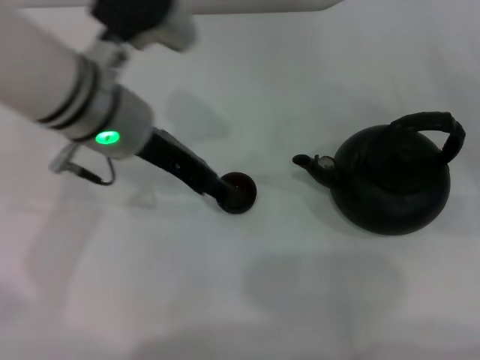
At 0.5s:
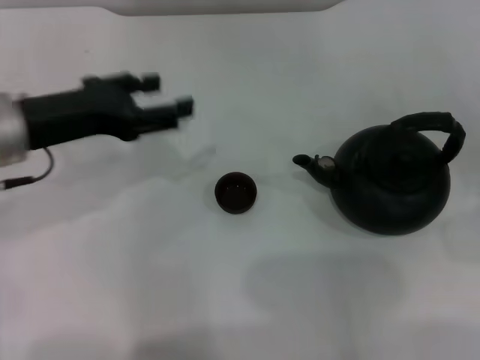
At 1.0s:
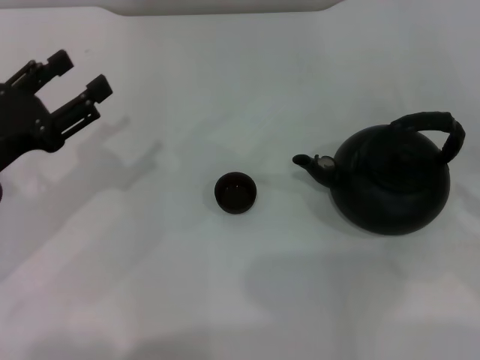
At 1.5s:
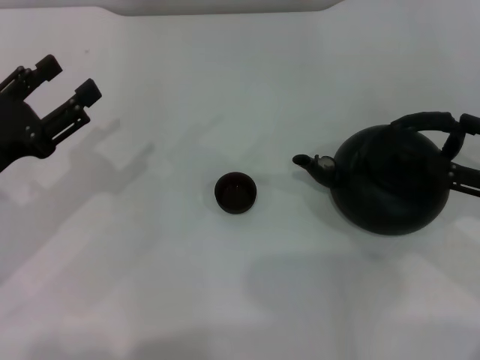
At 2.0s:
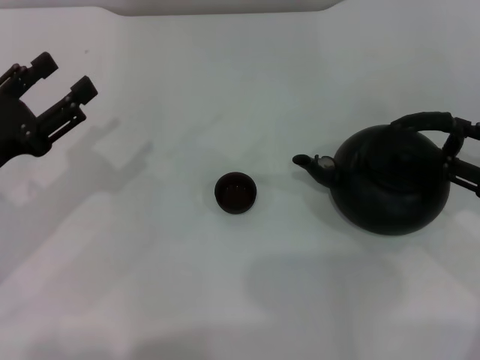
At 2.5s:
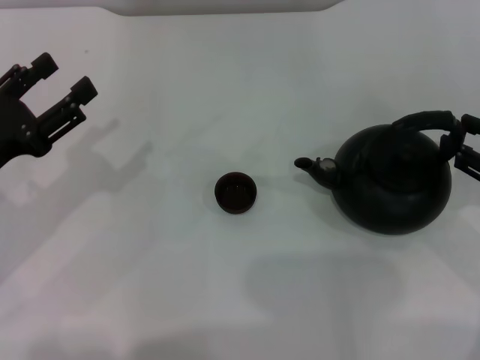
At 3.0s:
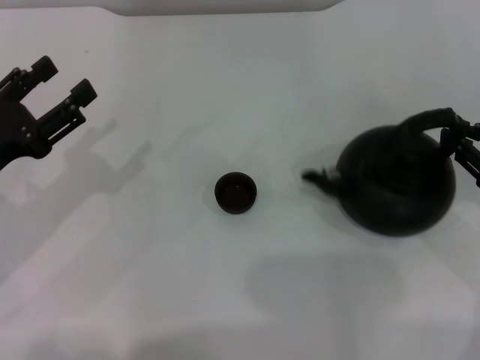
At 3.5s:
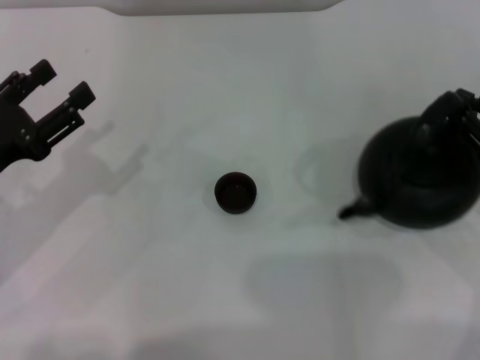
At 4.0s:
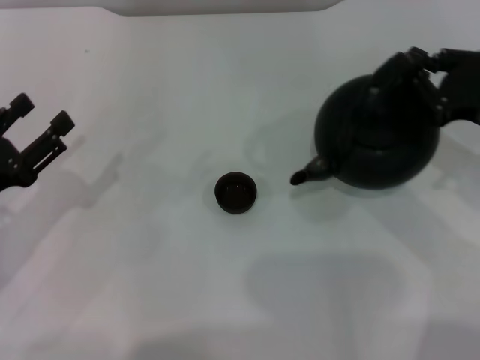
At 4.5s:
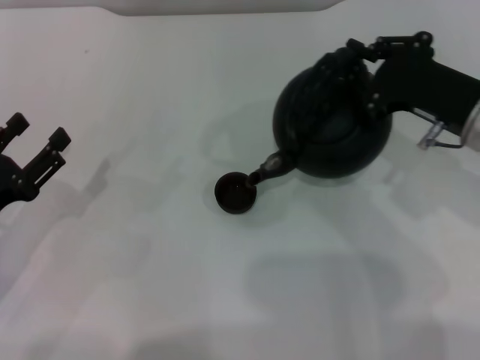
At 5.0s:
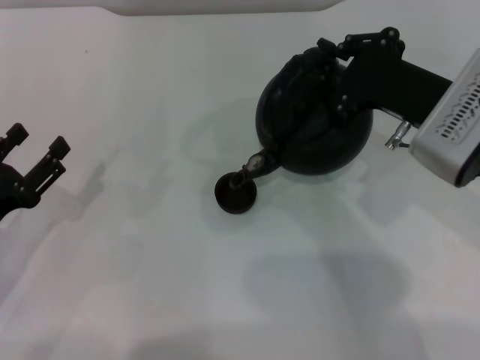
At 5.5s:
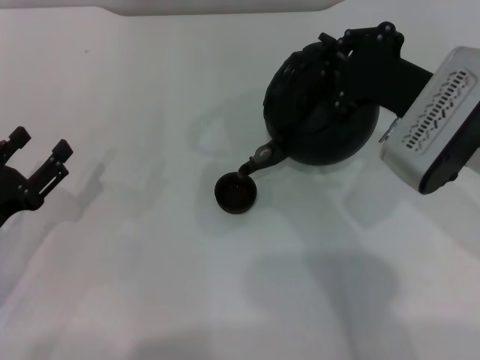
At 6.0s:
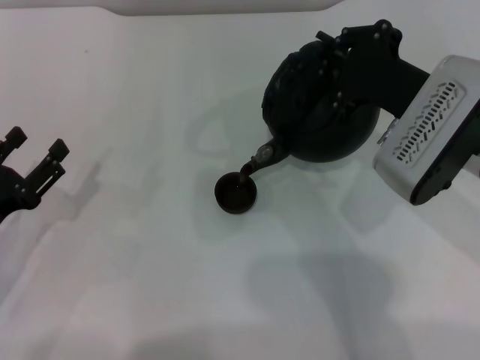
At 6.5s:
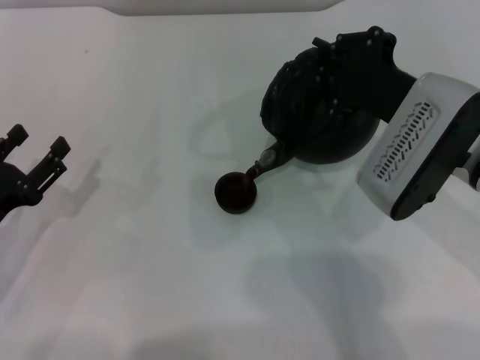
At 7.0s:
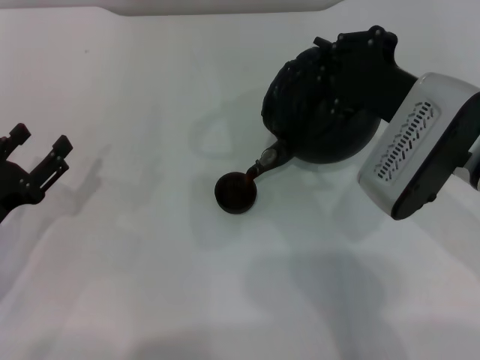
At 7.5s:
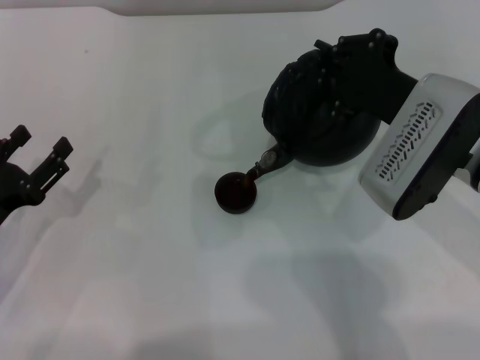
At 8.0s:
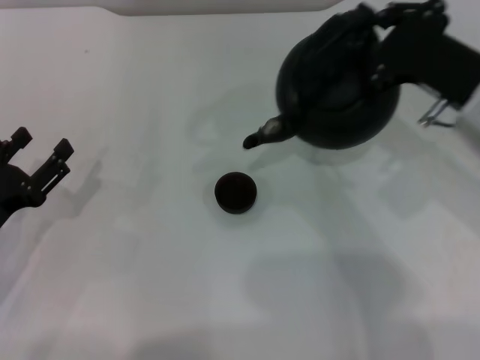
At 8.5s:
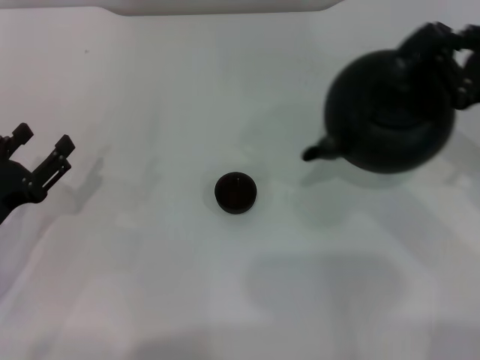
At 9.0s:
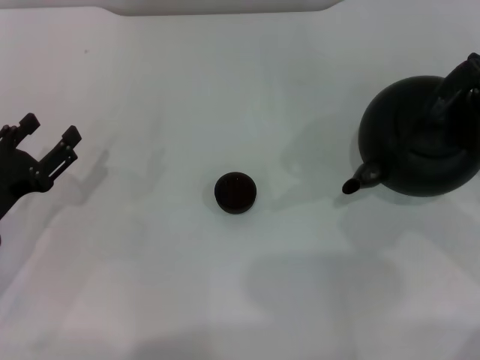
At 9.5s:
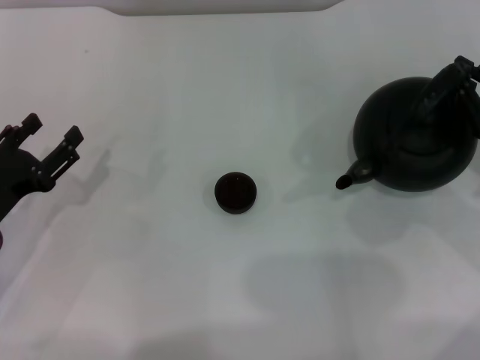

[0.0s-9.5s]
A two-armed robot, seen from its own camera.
Task of the whole recording: Grasp the handle of the teapot with one hand and pour tea into the teacup.
Step, 0.0s to 4.0s: Pick up the teapot with the right gripper.
Step, 4.5s to 7.5s: Pour tea into the teacup with the right gripper.
0.0s to 2.0s: The right gripper goes roughly 5 cm to the left. The left gripper shifts roughly 20 cm to the left, backward and downward.
2.0s to 4.0s: The right gripper shifts by some 5 cm, and closes its fingers.
4.0s to 5.5s: The right gripper is displaced to the left by approximately 10 cm.
5.5s to 7.5s: There are only small adjustments of the grippers.
7.5s to 9.5s: The right gripper travels to the right by about 15 cm.

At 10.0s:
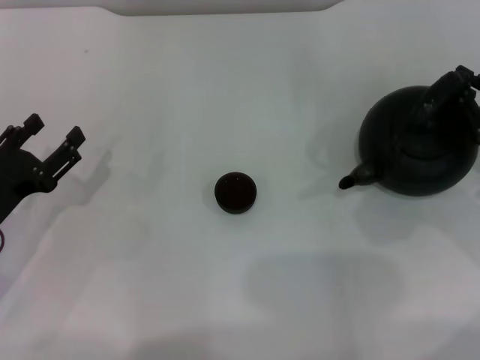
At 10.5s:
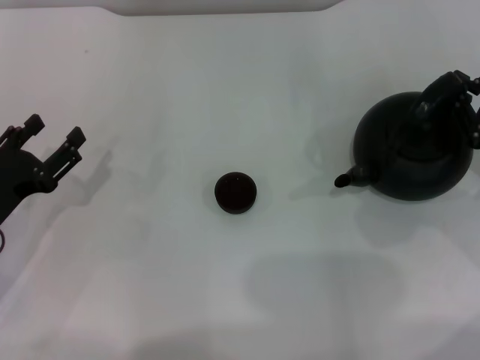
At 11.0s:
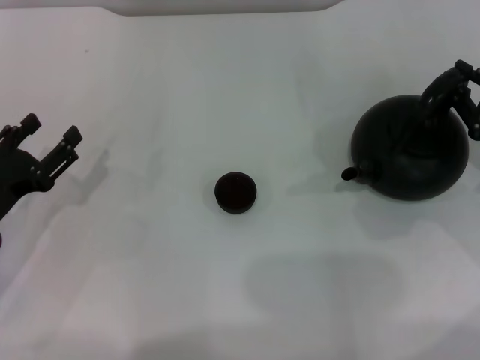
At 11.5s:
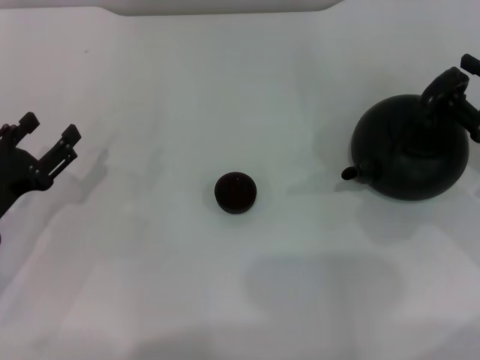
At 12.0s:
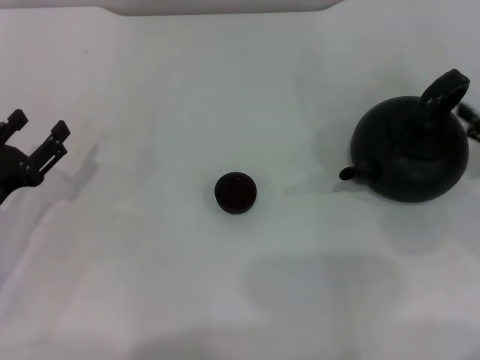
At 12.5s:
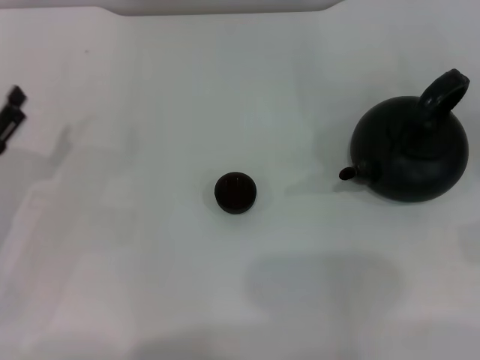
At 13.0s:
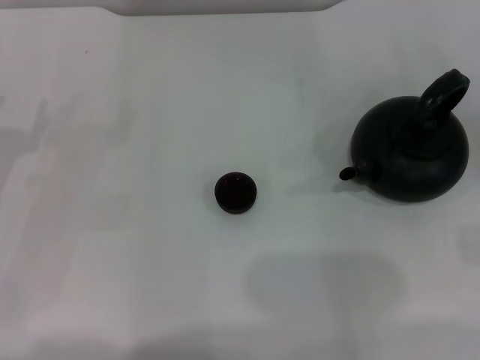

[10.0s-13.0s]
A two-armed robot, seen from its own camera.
Task of the whole recording: Grasp the handle of the teapot with one hand and pour tea into the teacup.
10.0s to 11.5s: Both grippers stay put.
11.5s to 13.0s: The right gripper is displaced to the right and backward by roughly 10 cm, and opens its fingers; the left gripper changes place by some 5 cm.

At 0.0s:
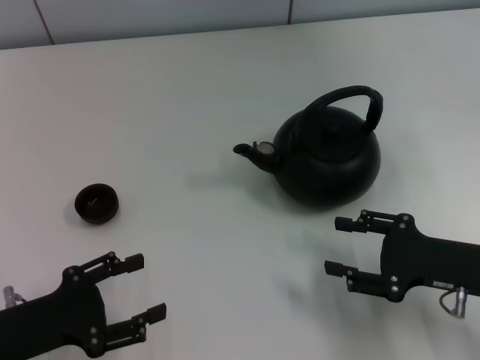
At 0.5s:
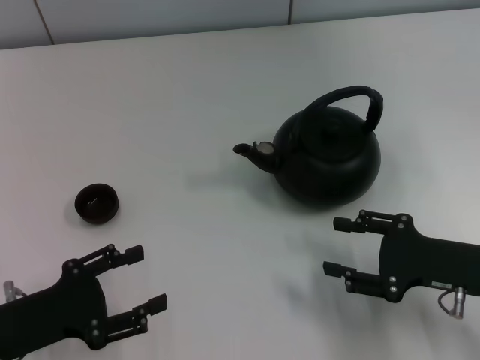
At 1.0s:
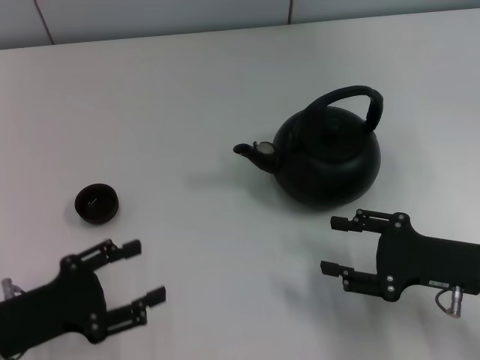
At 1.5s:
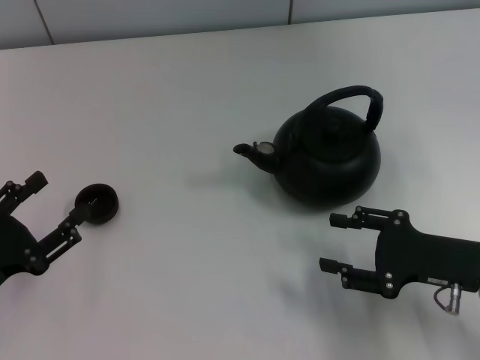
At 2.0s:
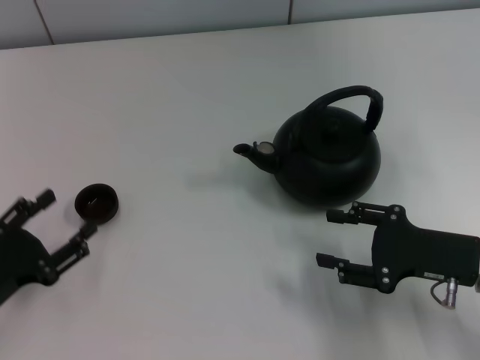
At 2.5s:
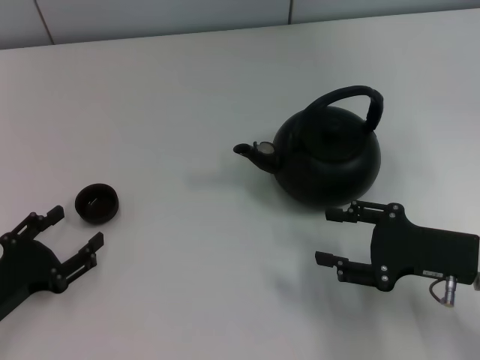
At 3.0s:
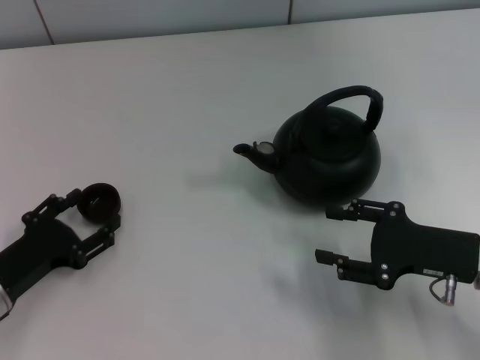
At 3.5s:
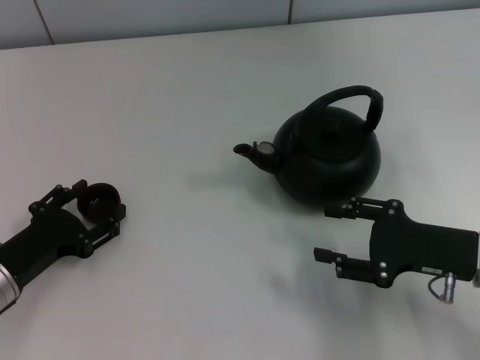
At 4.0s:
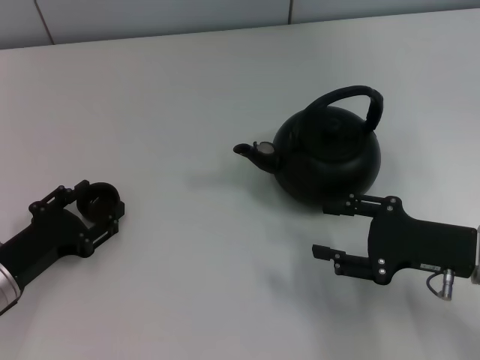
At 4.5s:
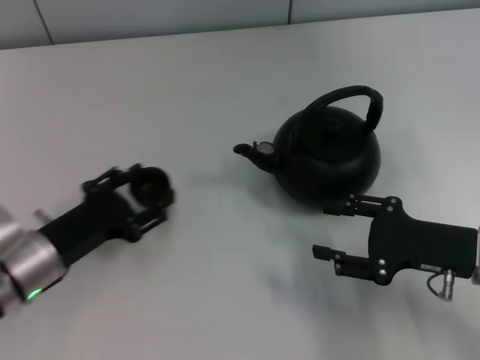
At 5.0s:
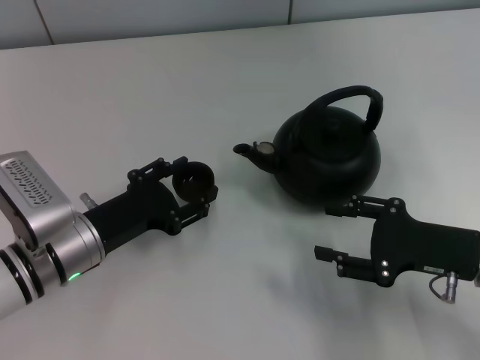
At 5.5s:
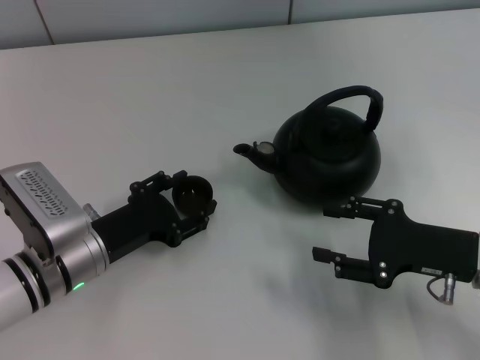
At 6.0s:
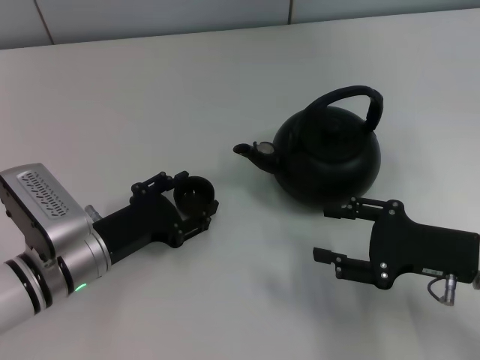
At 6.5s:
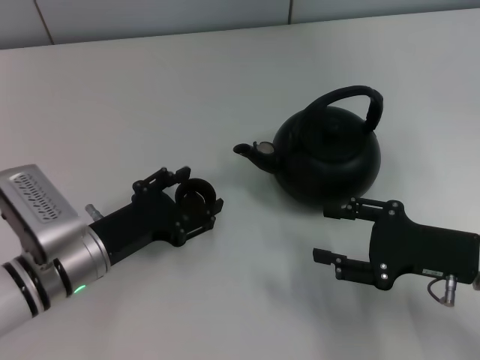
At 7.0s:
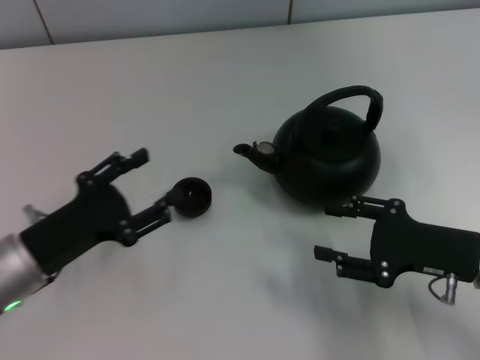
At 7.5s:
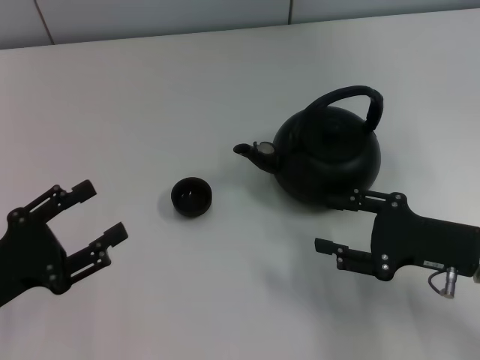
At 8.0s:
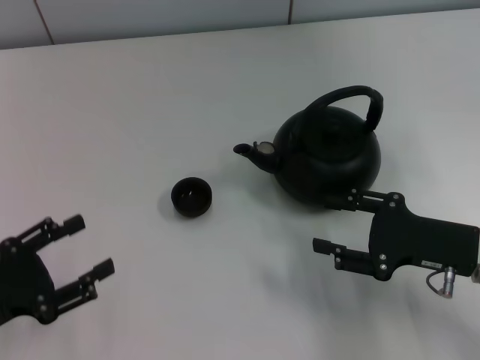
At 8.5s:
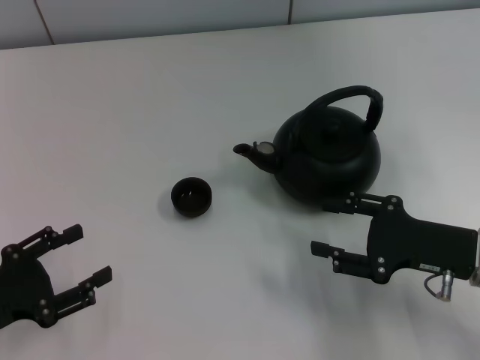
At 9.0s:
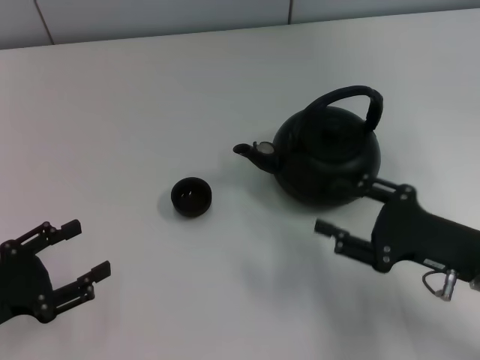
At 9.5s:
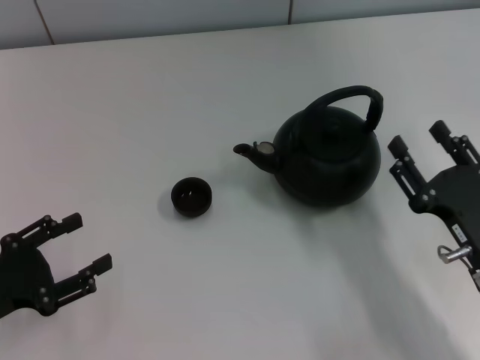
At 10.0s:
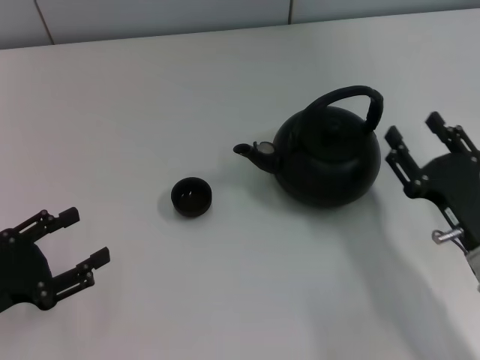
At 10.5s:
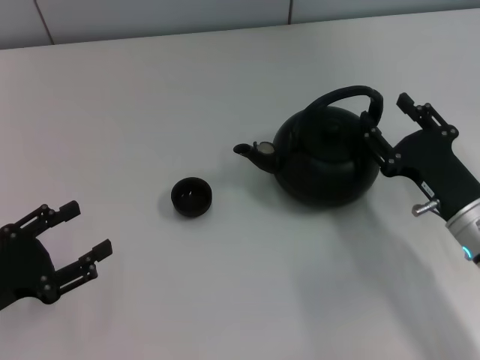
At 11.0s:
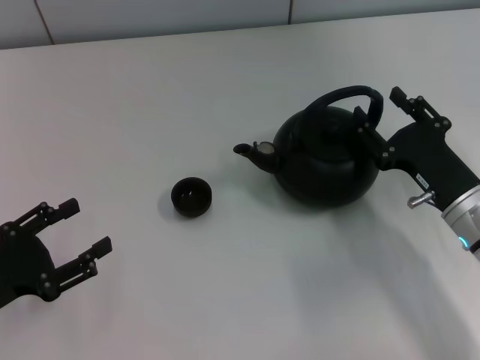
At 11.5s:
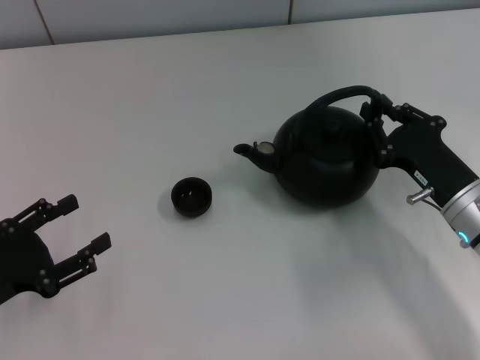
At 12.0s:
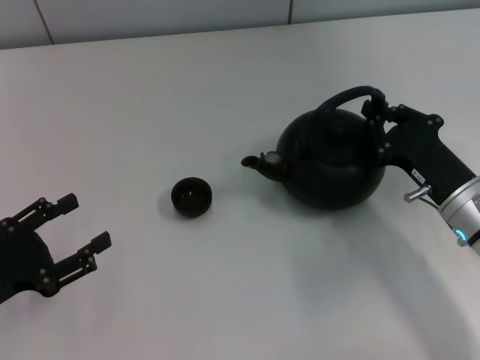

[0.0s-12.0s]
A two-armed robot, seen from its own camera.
Task of the whole recording: Grasp the handle of the teapot with one hand and pour tea into the teacup.
Step, 0.0s to 4.0s: Pick up the teacup with the left gripper.
Step, 4.5s to 6.5s: Place the teacup in the center of view with the left gripper.
2.0s to 4.0s: The left gripper ends up approximately 5 cm from where it was.
4.0s to 6.0s: The left gripper goes roughly 10 cm to the right.
6.0s to 8.0s: The left gripper heads to the left and backward, covering some 15 cm.
10.0s to 12.0s: The right gripper shifts roughly 5 cm forward, and closes its fingers.

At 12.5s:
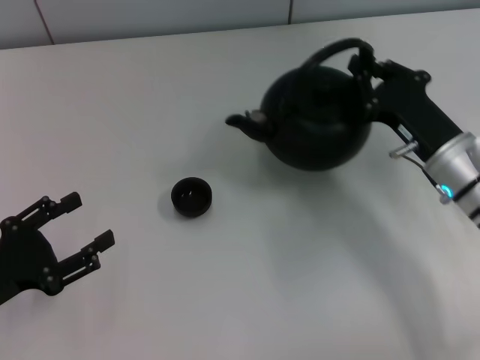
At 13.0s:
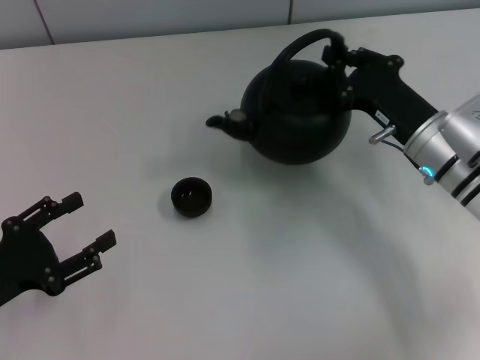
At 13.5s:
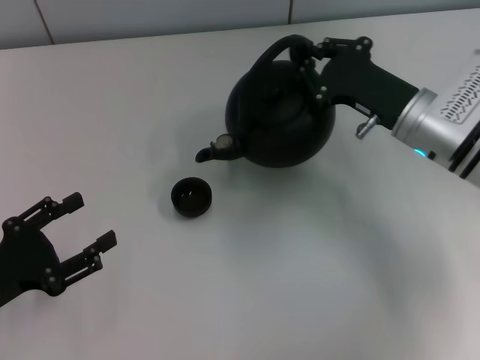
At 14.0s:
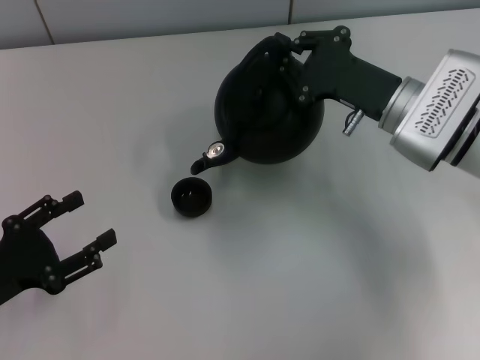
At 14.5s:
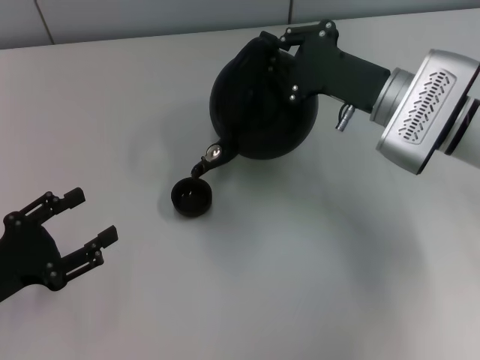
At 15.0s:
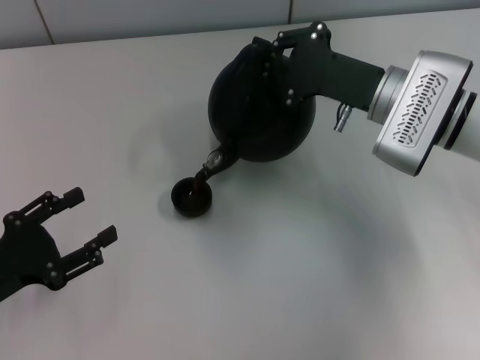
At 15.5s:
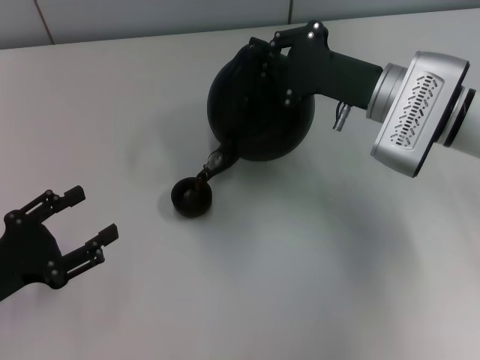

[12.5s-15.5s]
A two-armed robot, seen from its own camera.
Task of the whole recording: Grasp the handle of the teapot with one hand and pour tea into the teacup.
12.5s to 14.0s: The right gripper shifts roughly 5 cm forward.
14.0s to 15.5s: The grippers move only a little.
